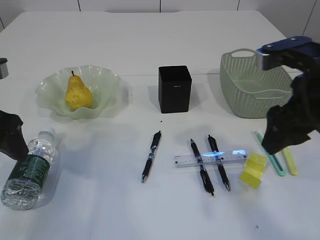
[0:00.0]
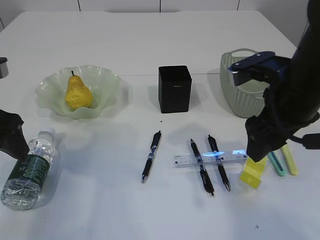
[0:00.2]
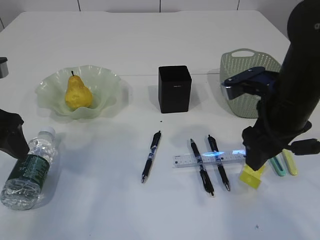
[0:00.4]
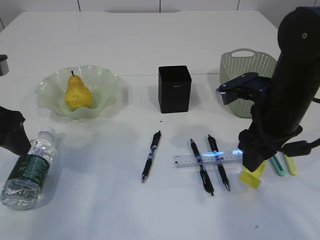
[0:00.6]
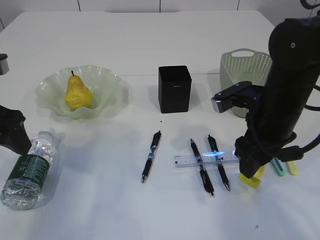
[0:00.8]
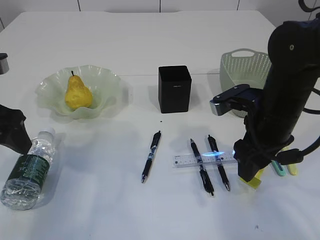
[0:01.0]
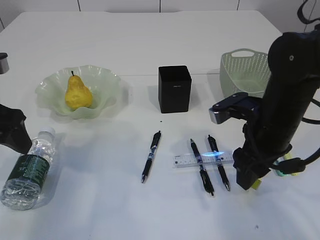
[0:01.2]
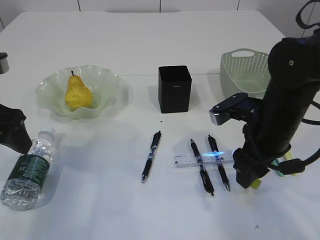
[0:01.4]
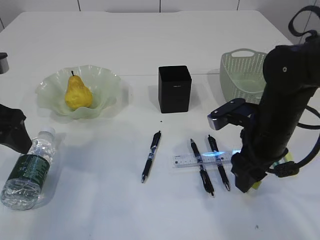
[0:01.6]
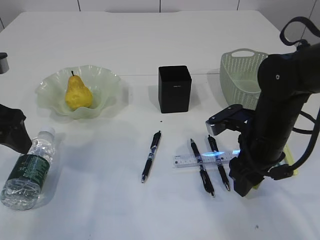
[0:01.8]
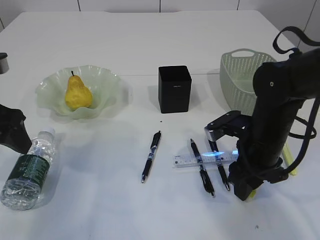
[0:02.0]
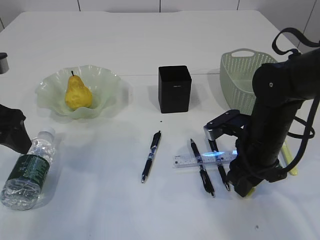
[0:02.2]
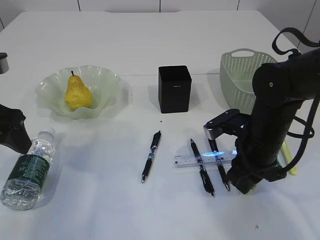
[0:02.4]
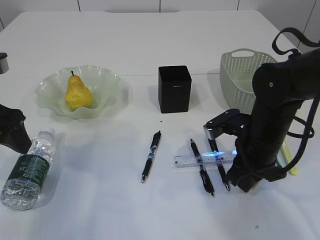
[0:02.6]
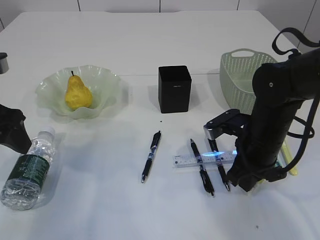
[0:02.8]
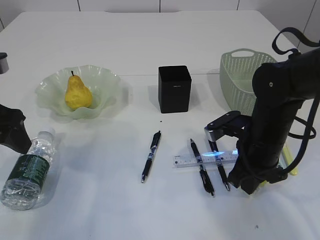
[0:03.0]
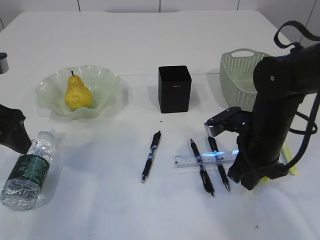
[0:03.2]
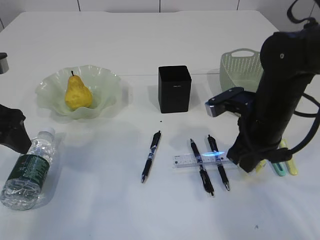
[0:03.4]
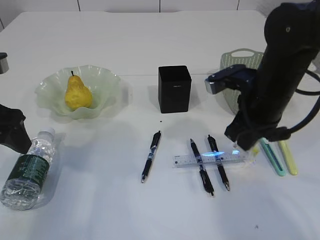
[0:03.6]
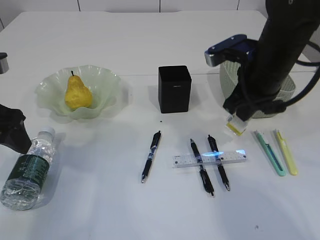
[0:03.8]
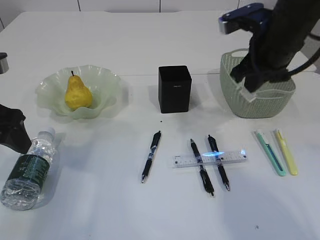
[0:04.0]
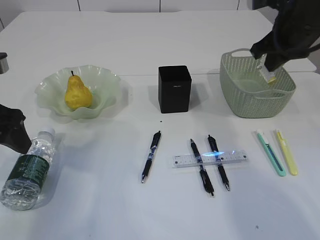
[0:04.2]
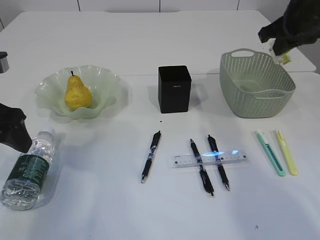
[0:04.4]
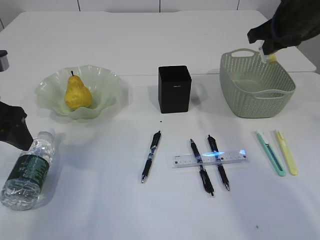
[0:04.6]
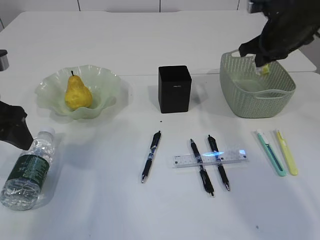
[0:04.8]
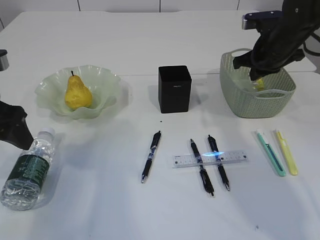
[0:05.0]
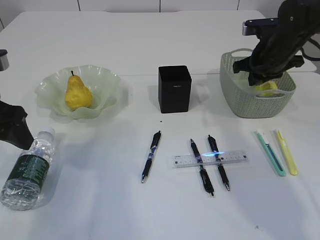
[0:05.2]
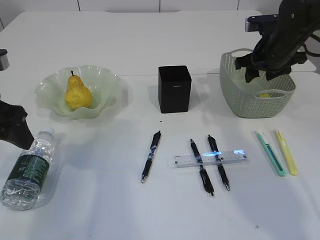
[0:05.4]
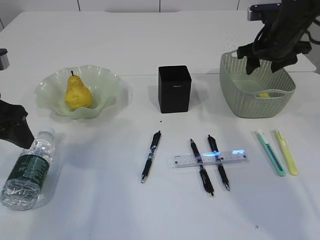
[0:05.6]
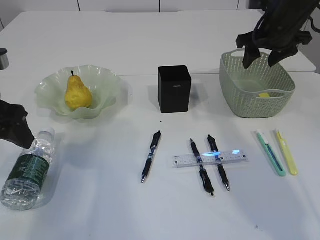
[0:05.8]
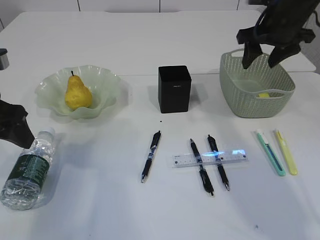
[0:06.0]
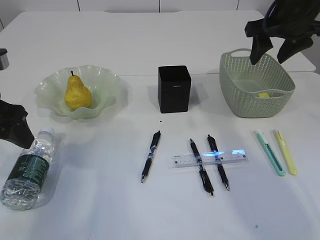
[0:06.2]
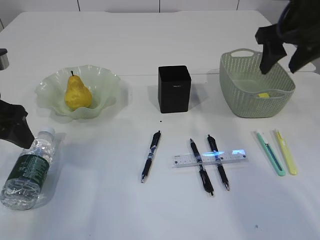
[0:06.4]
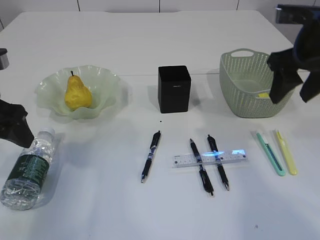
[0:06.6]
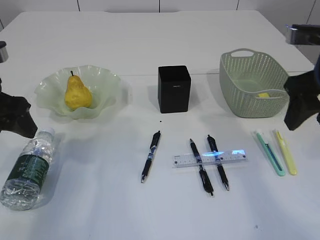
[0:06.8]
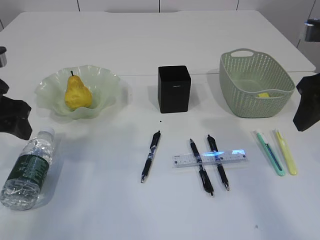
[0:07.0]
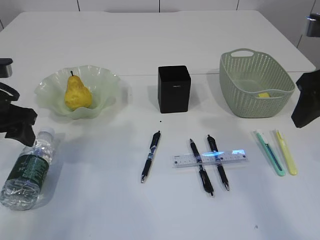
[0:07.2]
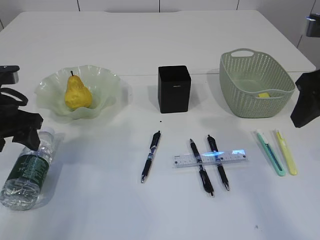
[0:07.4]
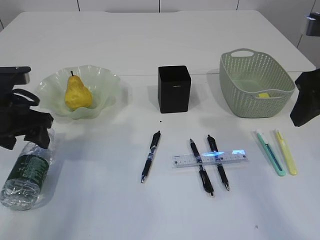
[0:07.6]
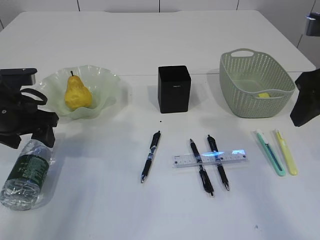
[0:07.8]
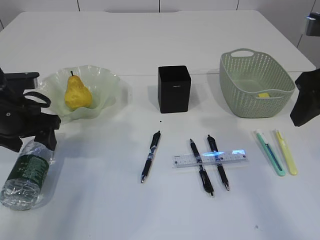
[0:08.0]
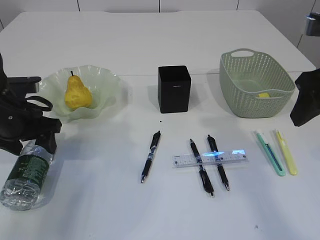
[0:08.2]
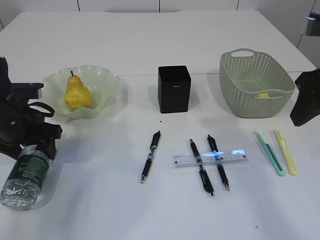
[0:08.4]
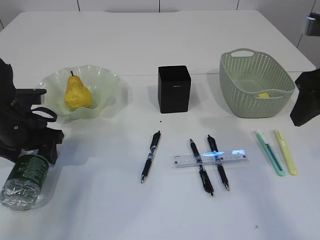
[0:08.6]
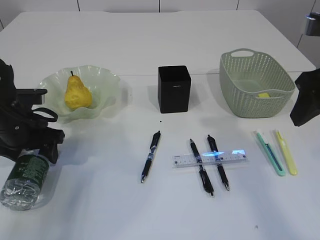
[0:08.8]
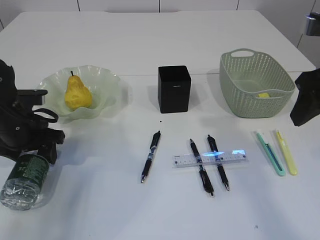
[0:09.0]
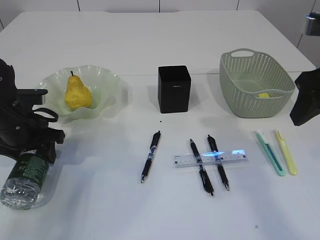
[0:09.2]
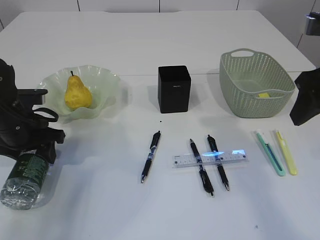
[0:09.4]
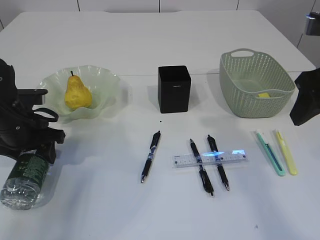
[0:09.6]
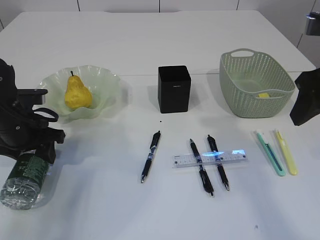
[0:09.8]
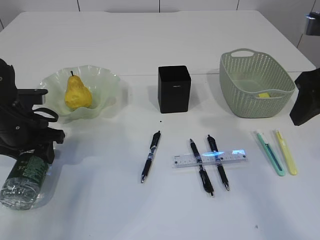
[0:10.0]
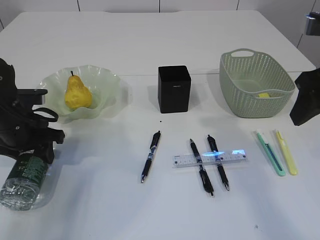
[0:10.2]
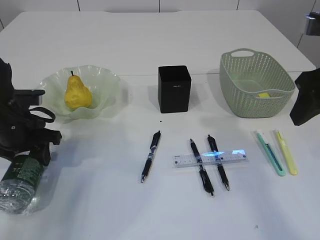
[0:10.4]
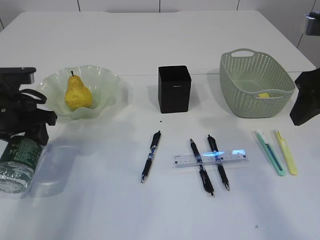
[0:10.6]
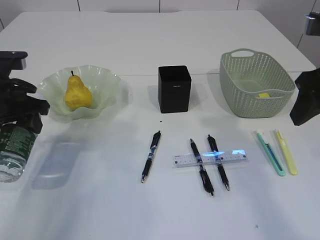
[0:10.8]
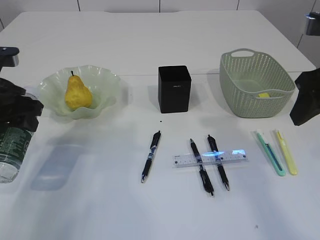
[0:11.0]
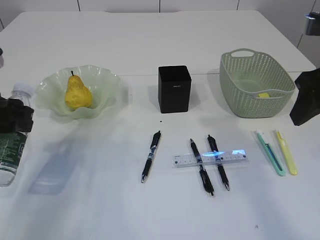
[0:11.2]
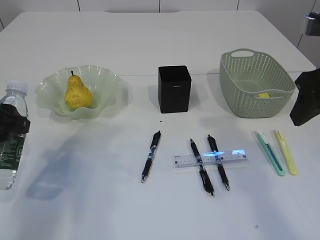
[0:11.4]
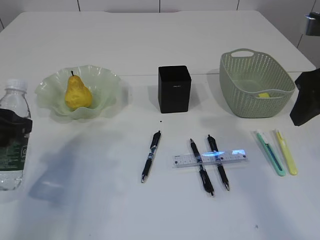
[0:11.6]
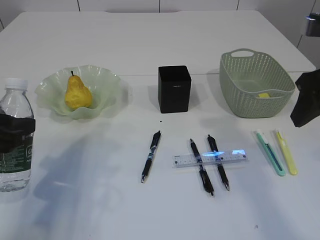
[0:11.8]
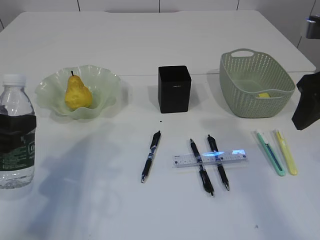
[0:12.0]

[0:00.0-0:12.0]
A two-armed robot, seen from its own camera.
Step, 0:00.0 to 0:03.4: Pick up the waste paper.
Step, 0:03.6 to 0:06.0: Place the waste paper in the basket.
Step, 0:06.2 to 0:10.6: Pick up the bottle with the left arm.
0:00.0 to 0:01.6: The right gripper moves downward, about 10 cm.
0:01.6 to 0:03.0: The right gripper closes up.
0:03.0 to 0:04.4: The right gripper is displaced upward, forward and to the right by approximately 20 cm.
0:04.4 to 0:06.0: The right gripper travels downward and back again, about 10 cm each way, and opens.
0:06.0 to 0:07.6: The left gripper moves downward, some 5 cm; the right gripper heads backward, covering roughly 20 cm.
0:07.6 to 0:09.0: The left gripper shifts roughly 5 cm downward.
0:09.0 to 0:10.4: Both grippers stay put.
0:10.4 to 0:12.0: The left gripper moves backward and upward, roughly 15 cm.

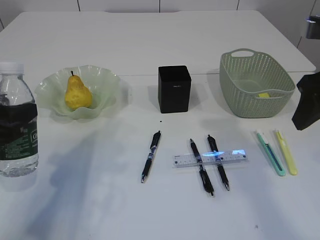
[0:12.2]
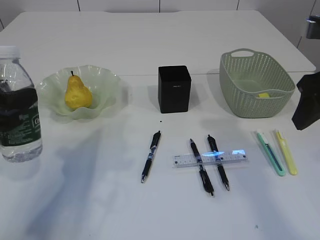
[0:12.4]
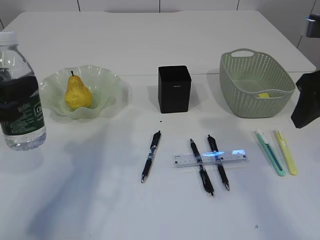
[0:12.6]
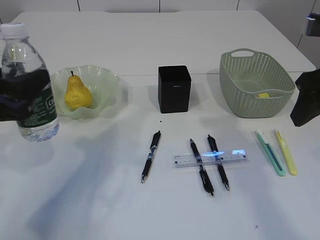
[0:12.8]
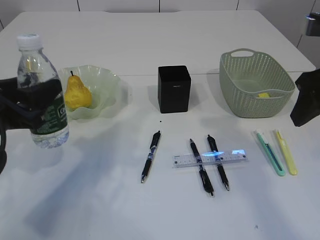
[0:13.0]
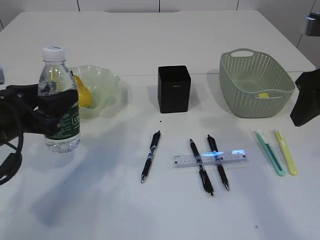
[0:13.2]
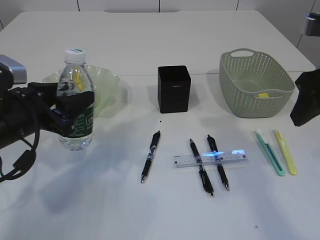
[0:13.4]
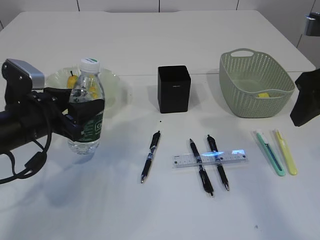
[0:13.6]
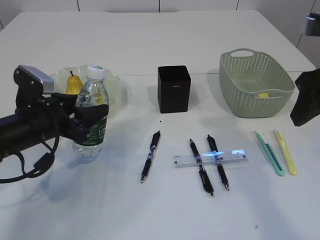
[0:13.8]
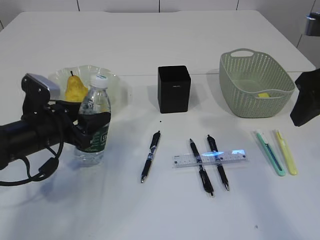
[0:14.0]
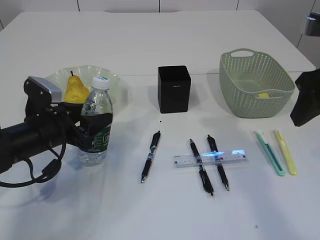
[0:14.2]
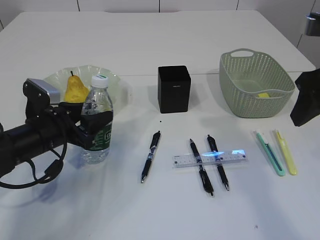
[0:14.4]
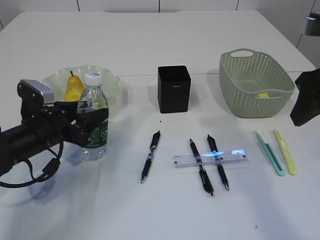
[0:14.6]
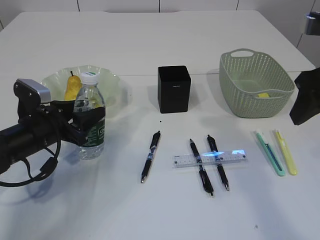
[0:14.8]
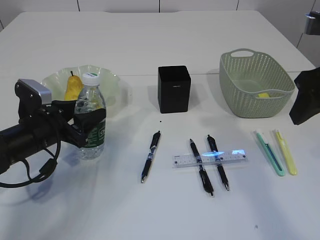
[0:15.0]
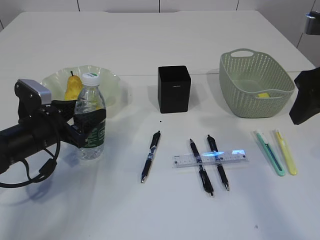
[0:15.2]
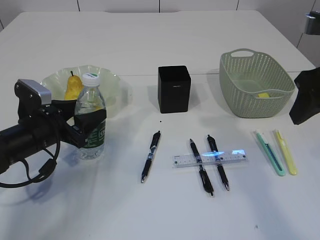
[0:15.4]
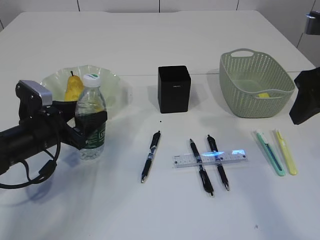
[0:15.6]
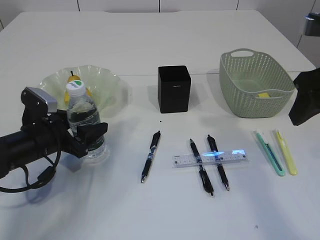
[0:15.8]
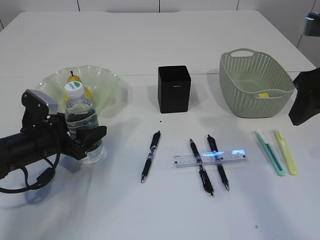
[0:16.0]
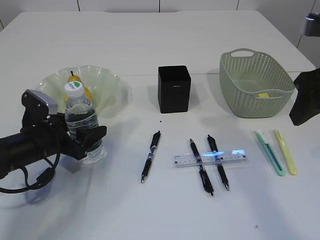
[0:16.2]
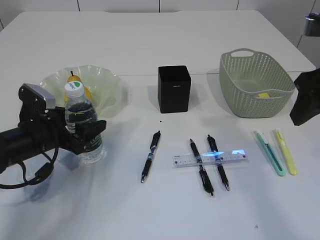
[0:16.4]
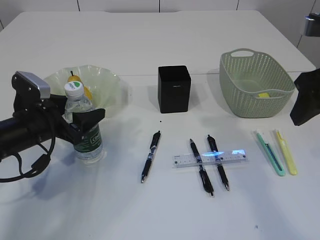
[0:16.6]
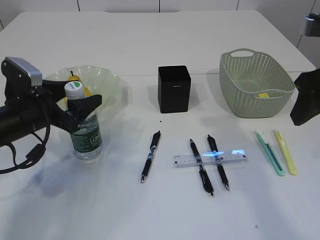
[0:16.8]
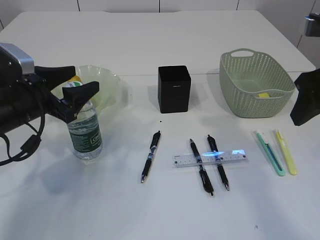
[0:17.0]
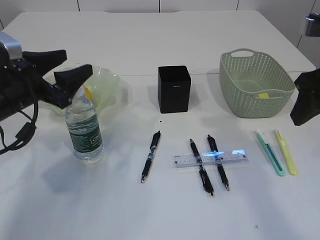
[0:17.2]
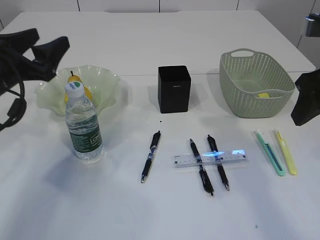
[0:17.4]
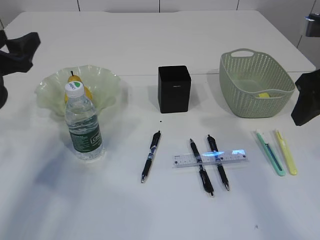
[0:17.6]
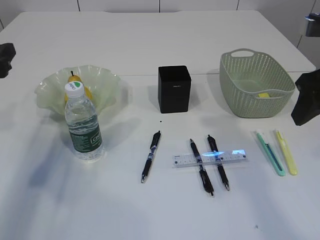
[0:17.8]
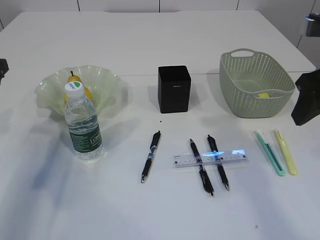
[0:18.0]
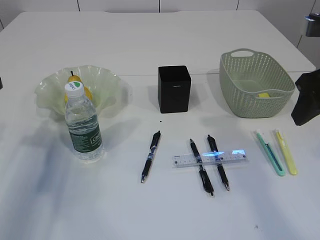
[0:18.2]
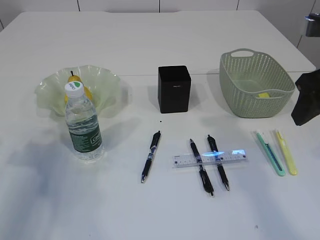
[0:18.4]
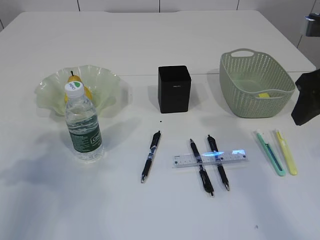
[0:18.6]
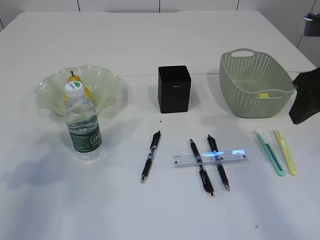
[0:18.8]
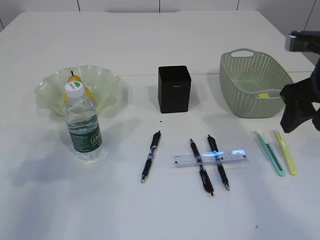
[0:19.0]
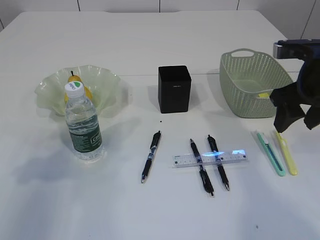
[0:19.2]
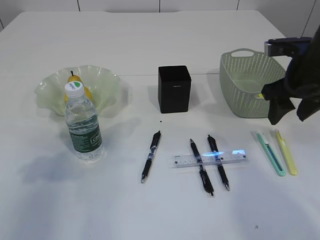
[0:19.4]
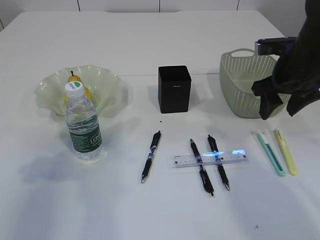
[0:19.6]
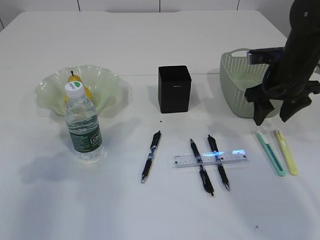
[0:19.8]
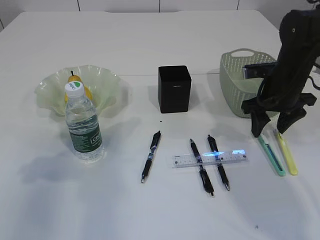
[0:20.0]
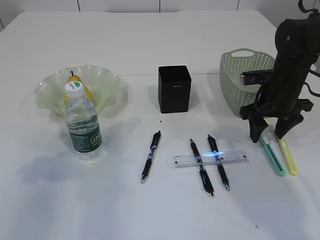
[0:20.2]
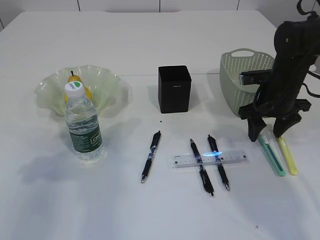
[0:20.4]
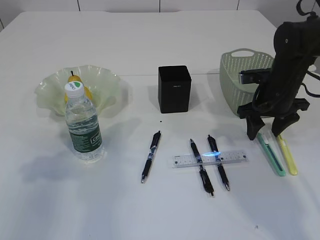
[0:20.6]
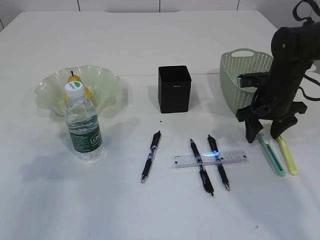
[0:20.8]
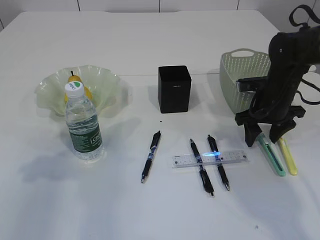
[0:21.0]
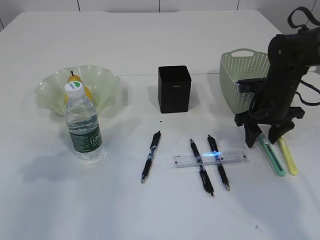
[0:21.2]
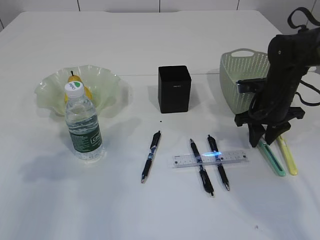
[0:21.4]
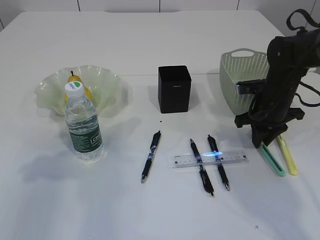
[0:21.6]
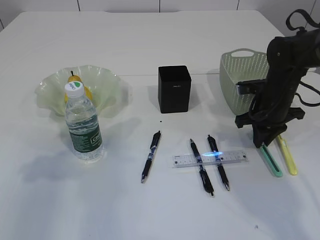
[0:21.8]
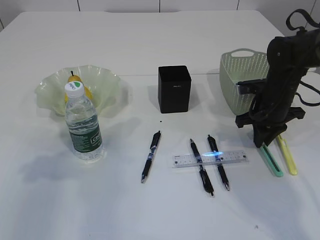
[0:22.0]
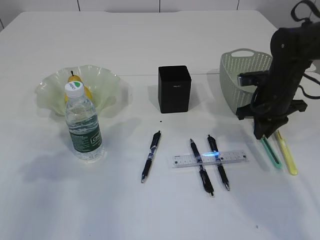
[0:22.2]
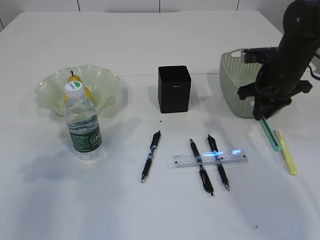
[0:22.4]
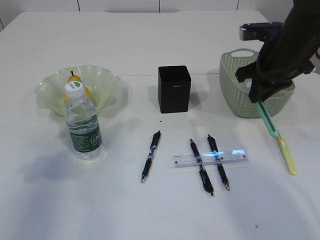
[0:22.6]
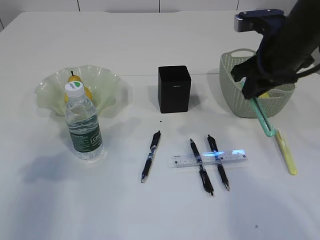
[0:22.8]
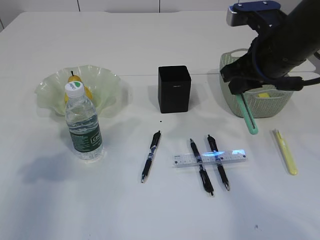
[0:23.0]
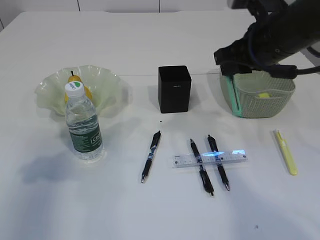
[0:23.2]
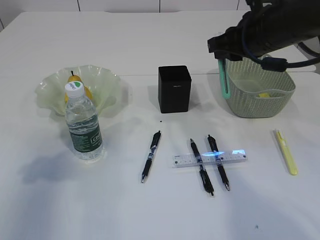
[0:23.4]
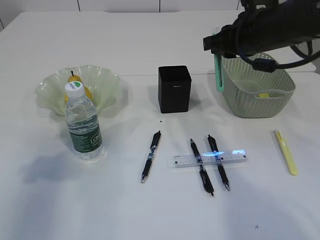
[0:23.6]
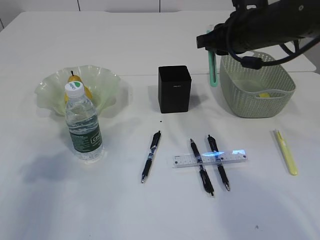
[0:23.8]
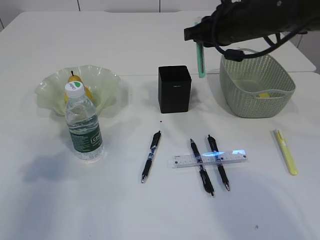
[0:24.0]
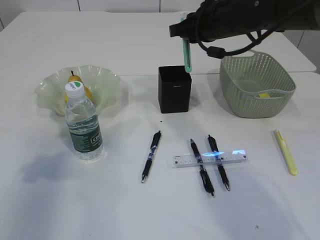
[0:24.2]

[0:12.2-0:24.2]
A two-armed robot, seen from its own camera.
Step, 0:12.2 to 0:17.0: Place the bottle.
Step, 0:17.2 to 0:22.2: pick up the blue knife.
0:12.2 to 0:13.8: The left gripper is displaced forward, downward and to the right by some 10 cm.
0:13.8 to 0:16.6: The grippers stay close to where they were, moving slightly.
0:16.6 to 0:18.2: The left gripper goes approximately 15 cm upward and to the left.
0:18.2 to 0:19.8: The left gripper ends up approximately 5 cm from where it was. Meanwhile the right gripper goes roughly 15 cm forward and downward.
0:19.8 to 0:21.2: The right gripper heads downward, covering some 5 cm.
0:21.2 to 0:22.6: The right gripper is displaced upward by about 10 cm, and closes up.
0:22.6 to 0:24.2: The right gripper heads to the left, covering some 10 cm.
